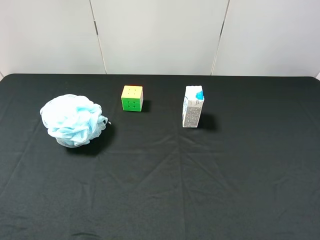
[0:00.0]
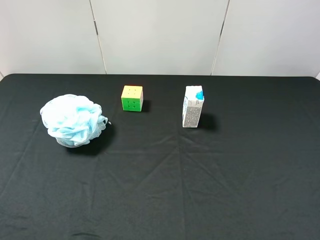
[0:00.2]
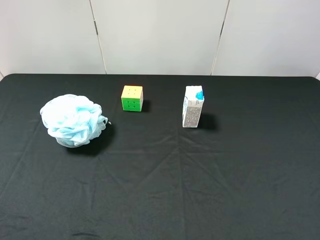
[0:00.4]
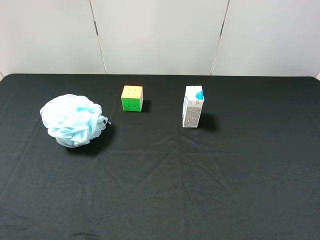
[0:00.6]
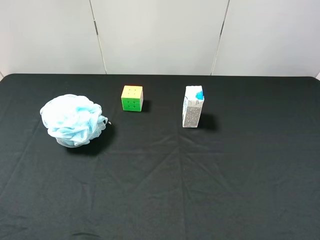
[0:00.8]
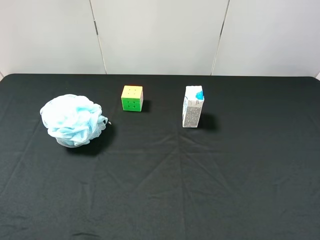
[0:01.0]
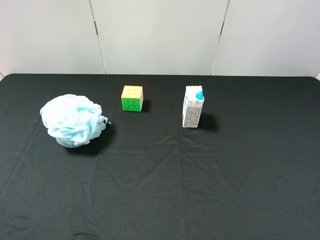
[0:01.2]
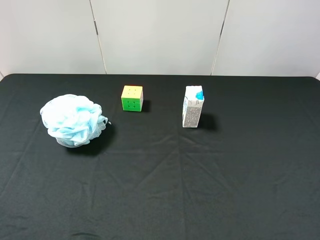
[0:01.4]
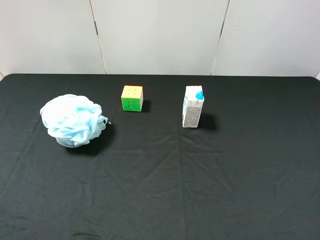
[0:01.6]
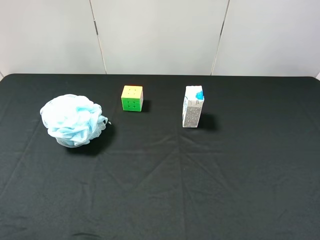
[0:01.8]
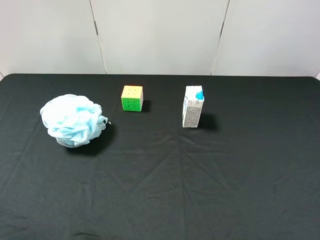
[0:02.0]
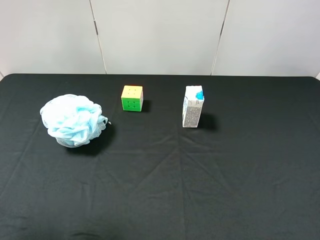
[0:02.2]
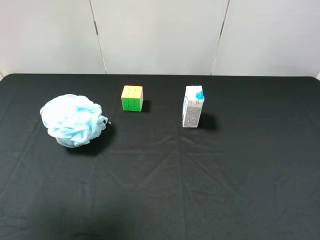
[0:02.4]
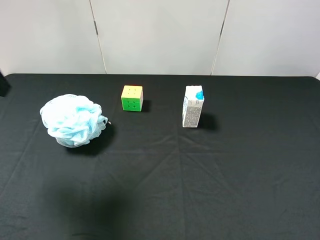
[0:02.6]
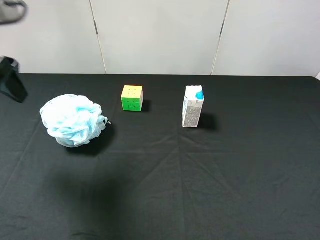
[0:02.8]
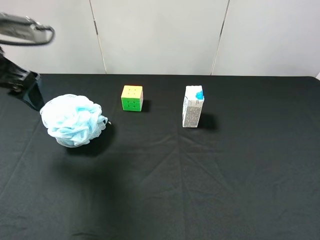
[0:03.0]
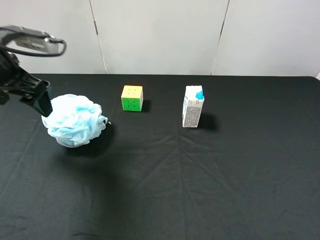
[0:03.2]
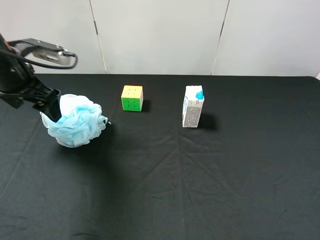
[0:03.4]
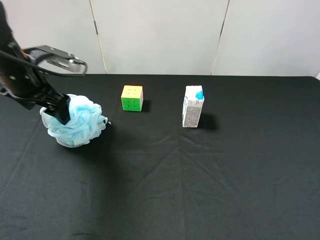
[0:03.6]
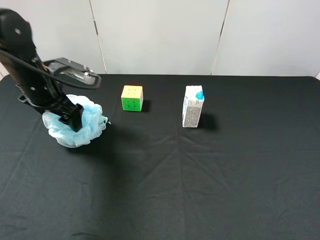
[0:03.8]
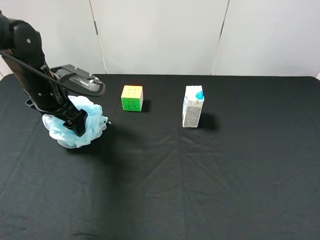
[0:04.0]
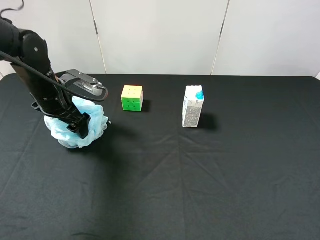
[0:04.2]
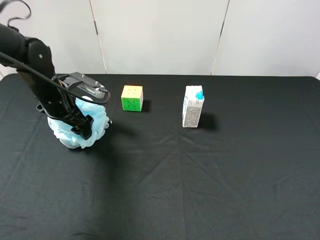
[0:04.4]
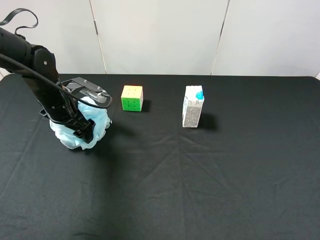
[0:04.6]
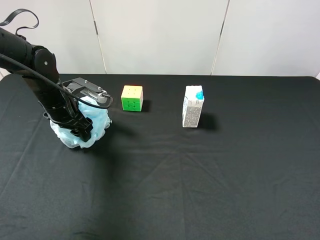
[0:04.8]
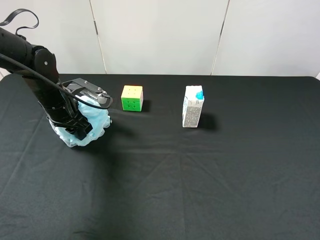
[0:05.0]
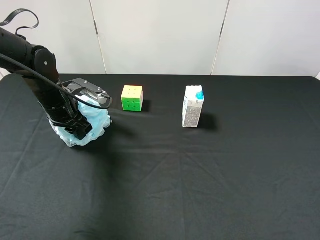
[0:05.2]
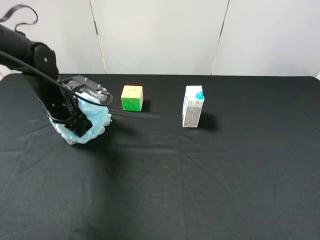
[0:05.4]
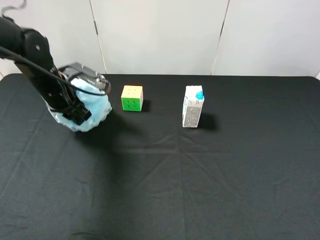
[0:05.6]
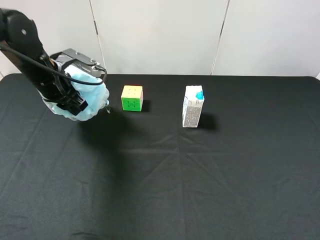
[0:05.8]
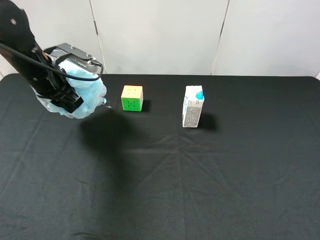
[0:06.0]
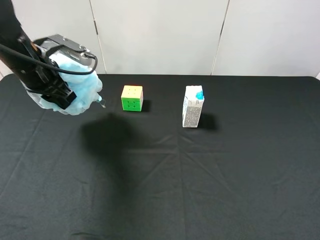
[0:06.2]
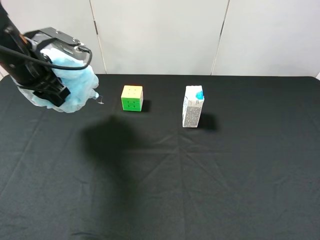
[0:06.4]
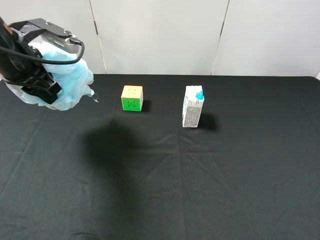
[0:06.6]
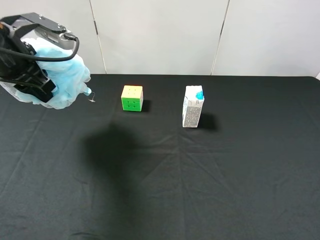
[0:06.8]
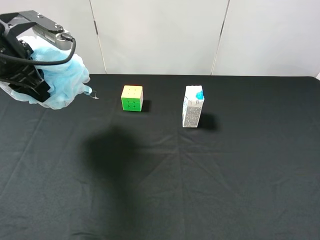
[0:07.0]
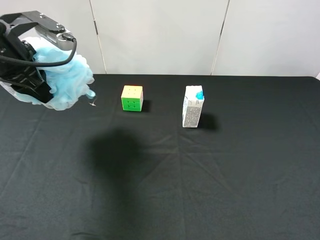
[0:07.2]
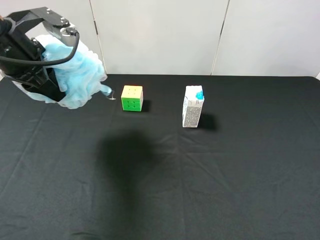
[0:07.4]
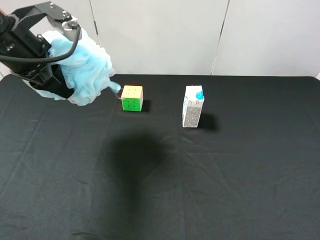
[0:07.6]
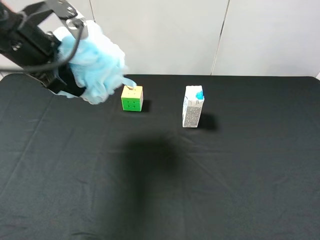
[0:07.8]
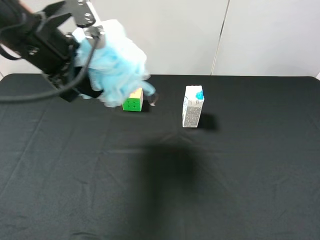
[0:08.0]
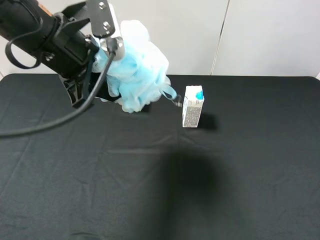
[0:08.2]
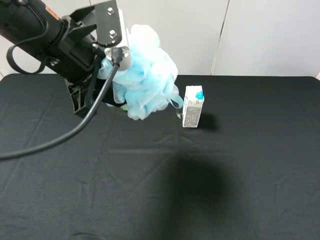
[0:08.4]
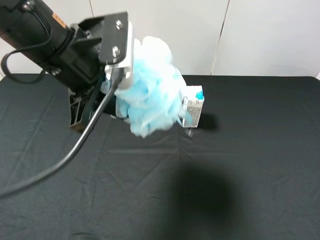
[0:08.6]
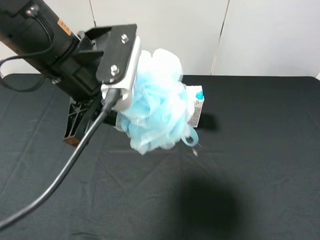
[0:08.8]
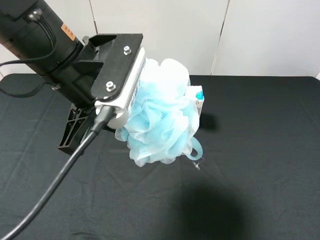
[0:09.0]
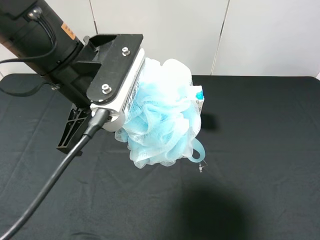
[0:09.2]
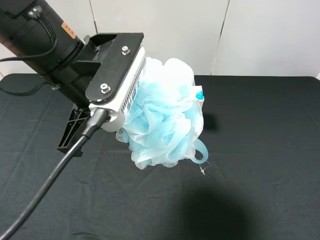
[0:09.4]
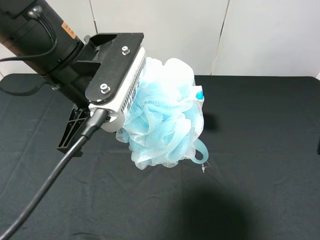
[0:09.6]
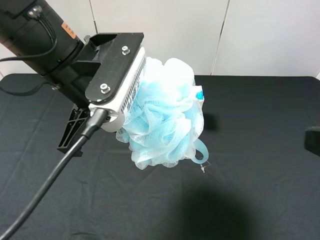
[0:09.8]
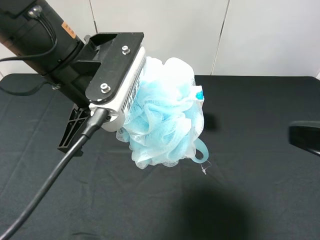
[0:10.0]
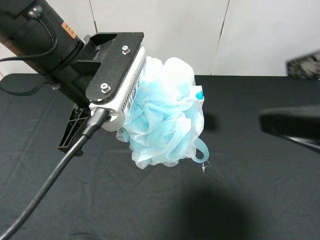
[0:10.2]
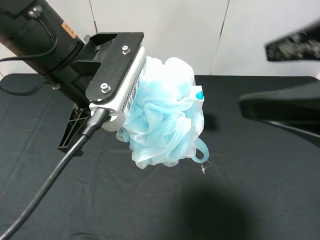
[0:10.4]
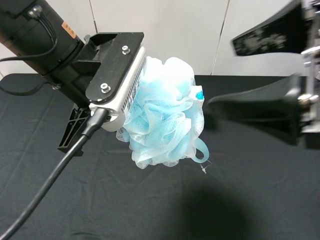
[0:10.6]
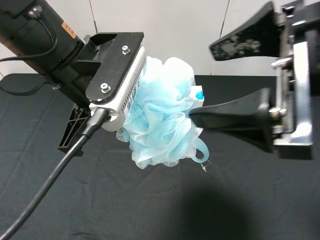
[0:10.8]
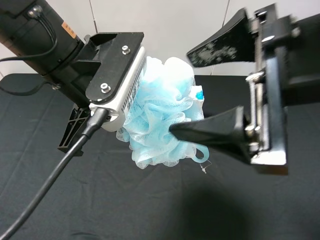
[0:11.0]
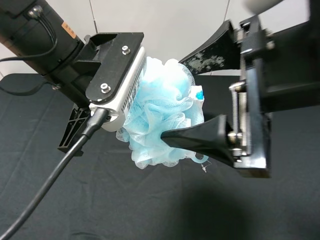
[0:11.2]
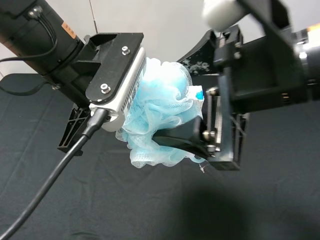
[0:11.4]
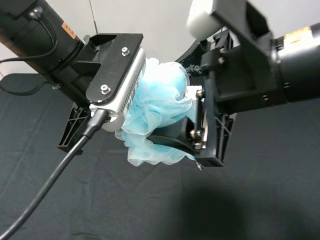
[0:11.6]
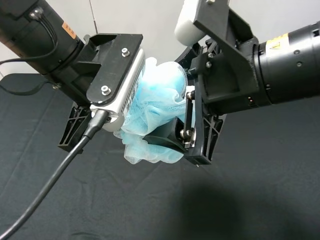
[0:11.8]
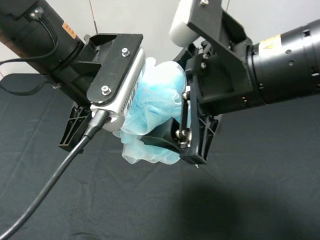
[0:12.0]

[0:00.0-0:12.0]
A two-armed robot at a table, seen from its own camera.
Task of the whole recording: use the left gripper to pick up the item and transfer it from the left gripper to the right gripper.
0:01.6 to 0:03.0: The left gripper goes roughly 25 cm forward.
0:03.0 to 0:04.4: The left gripper moves downward and forward, roughly 15 cm.
0:04.4 to 0:06.0: The left gripper travels upward by approximately 10 cm, and closes up.
0:06.0 to 0:07.6: The left gripper is displaced upward by about 10 cm.
0:07.6 to 0:09.0: The left gripper shifts about 15 cm to the right and backward.
0:09.0 to 0:10.4: The right gripper travels forward, to the left and upward by approximately 15 cm.
0:10.4 to 0:12.0: The right gripper travels to the left and downward by approximately 10 cm.

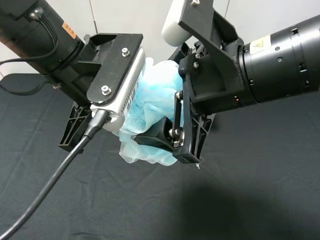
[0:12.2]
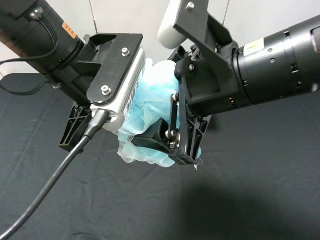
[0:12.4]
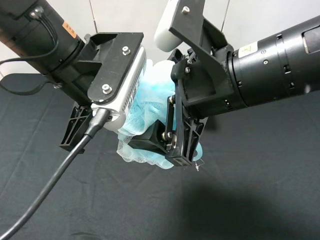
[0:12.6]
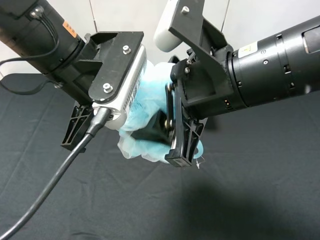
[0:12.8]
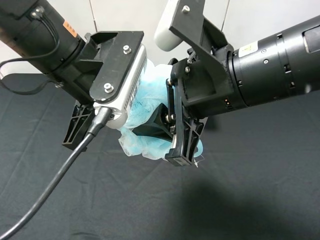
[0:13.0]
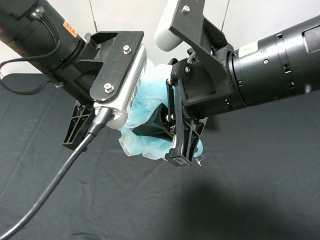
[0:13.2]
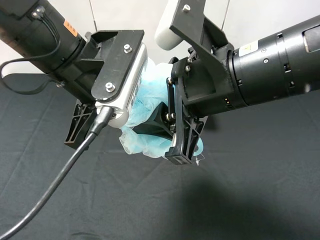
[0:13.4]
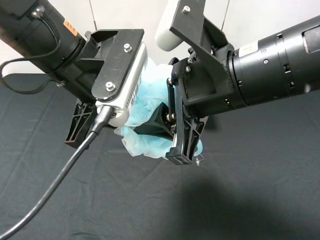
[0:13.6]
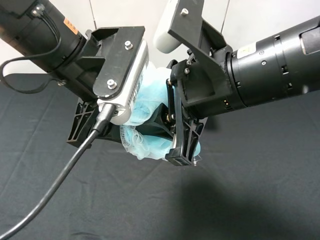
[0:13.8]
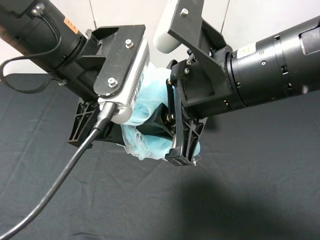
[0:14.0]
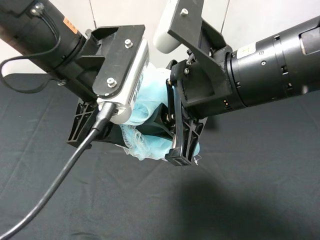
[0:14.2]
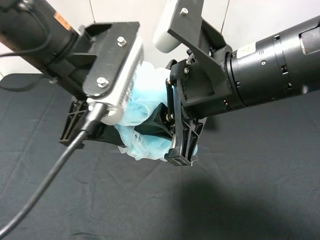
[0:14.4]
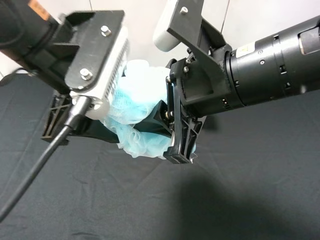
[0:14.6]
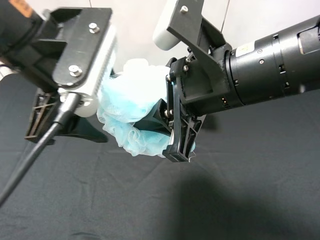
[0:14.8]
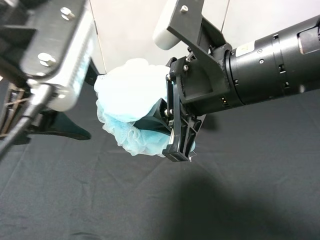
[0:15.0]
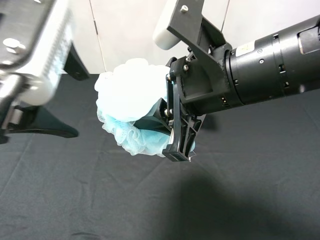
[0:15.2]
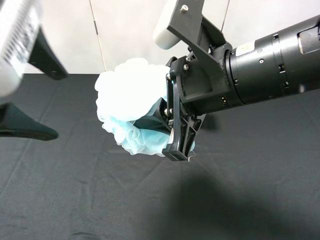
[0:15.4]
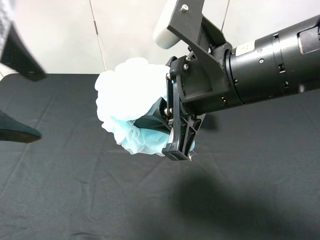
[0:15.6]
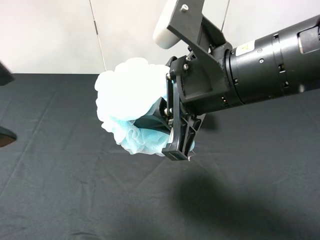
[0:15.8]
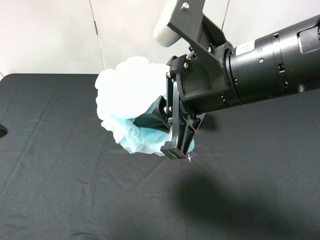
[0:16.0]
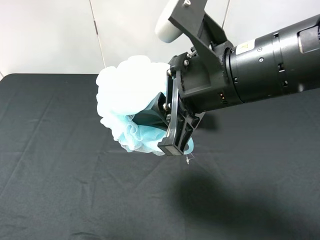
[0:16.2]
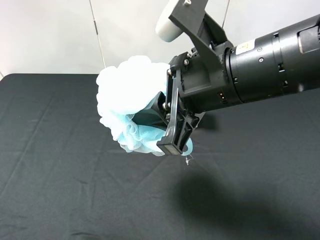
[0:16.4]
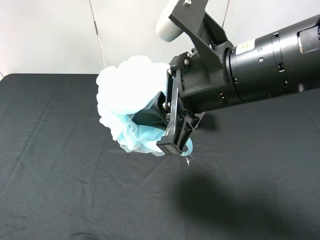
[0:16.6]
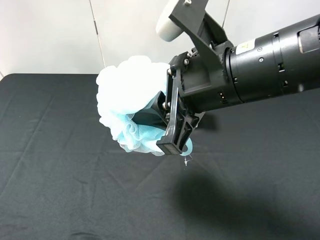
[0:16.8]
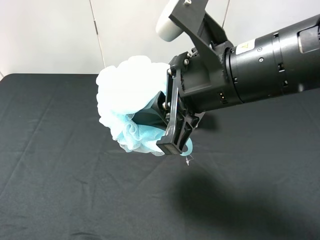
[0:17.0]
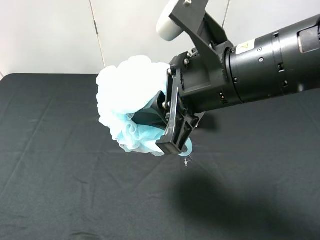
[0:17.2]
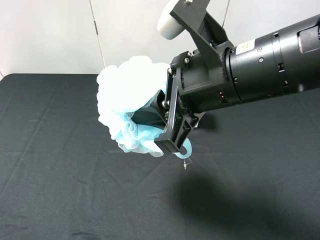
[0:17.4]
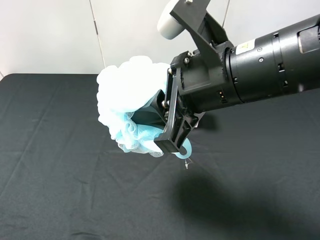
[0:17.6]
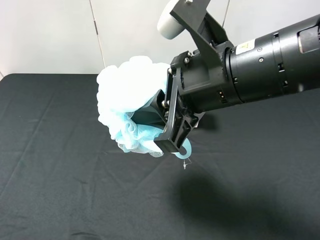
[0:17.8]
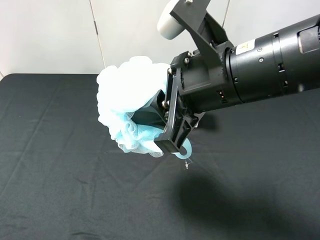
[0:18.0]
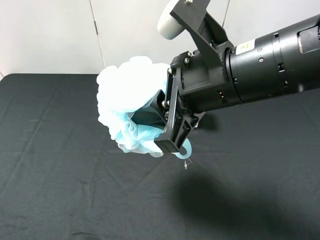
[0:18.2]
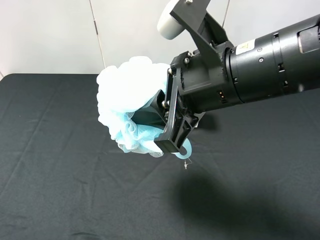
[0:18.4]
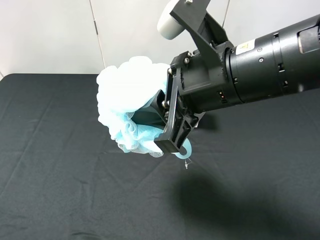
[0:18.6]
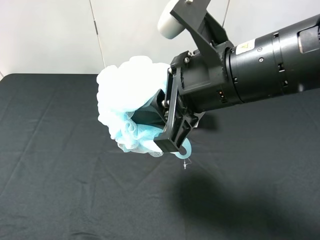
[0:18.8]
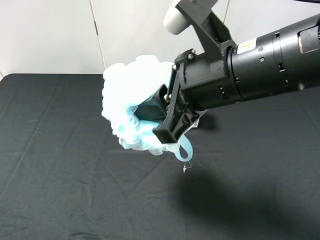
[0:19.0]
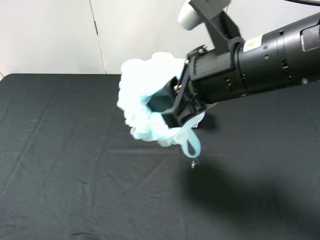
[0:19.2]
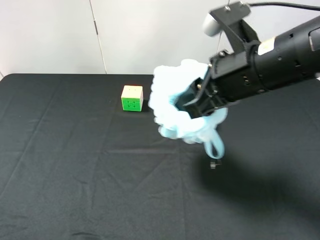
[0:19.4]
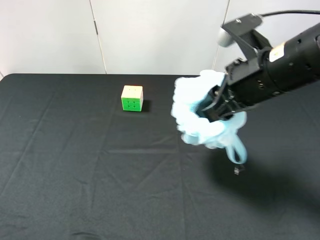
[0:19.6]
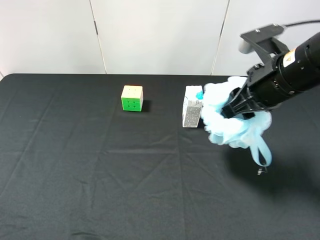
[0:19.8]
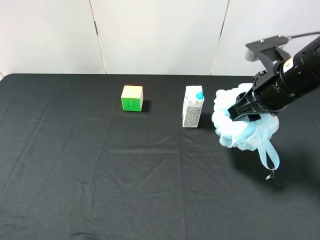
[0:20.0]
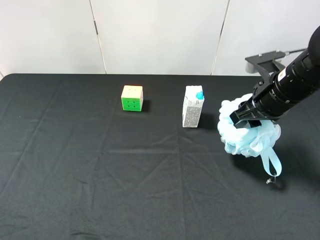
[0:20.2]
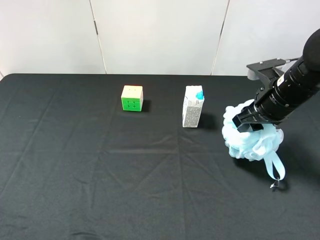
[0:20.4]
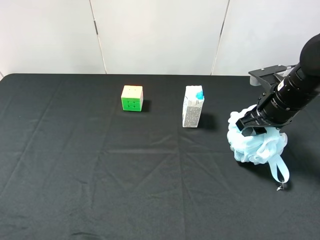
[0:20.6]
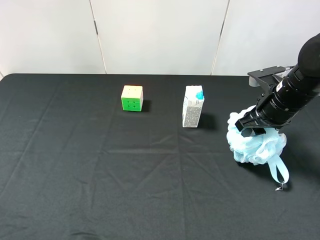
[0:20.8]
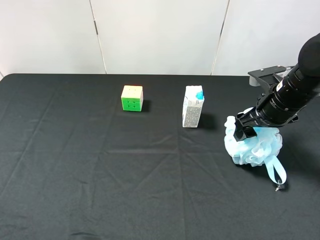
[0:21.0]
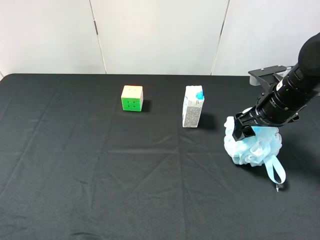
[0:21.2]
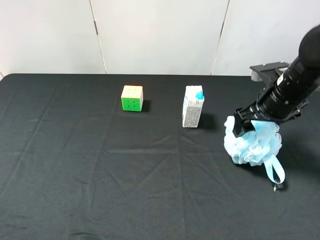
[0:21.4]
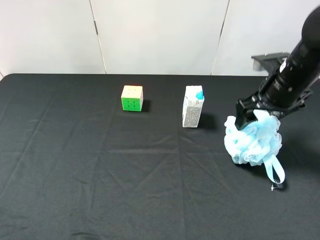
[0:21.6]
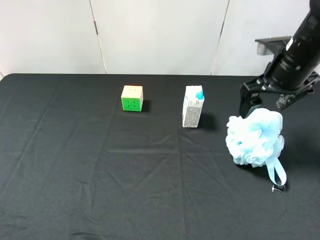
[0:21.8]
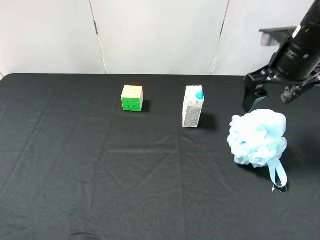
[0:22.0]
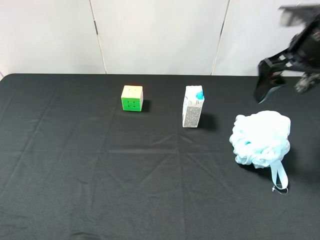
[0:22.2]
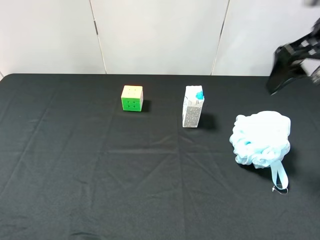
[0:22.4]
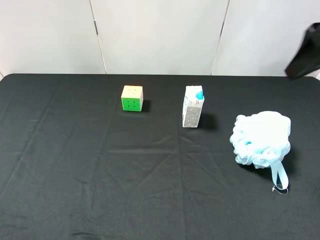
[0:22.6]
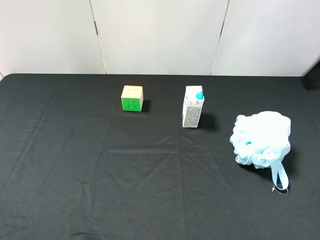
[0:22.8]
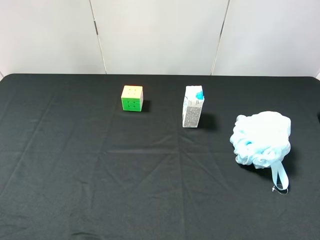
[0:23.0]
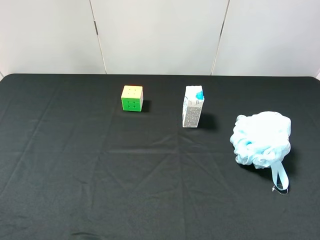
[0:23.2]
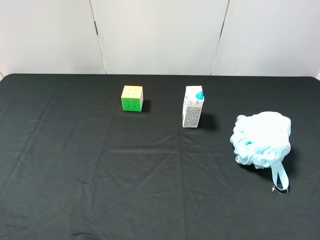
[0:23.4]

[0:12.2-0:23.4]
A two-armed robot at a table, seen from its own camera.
Task of the whole recording: use the left gripper to pick up the item and transfer it from the left gripper to the right gripper.
0:12.2 to 0:13.8: The left gripper opens. Meanwhile the right gripper closes.
0:13.8 to 0:15.4: The left gripper moves to the left, upward and backward, approximately 10 cm.
0:15.4 to 0:17.0: The left gripper goes approximately 20 cm backward, to the left and downward.
0:17.0 to 0:18.6: The grippers stay close to where they were, moving slightly.
0:18.6 to 0:20.2: The right gripper goes approximately 20 cm to the right, forward and downward.
0:20.2 to 0:21.8: The right gripper shifts by roughly 5 cm, and opens up.
0:21.8 to 0:23.4: The right gripper moves backward, some 25 cm.
